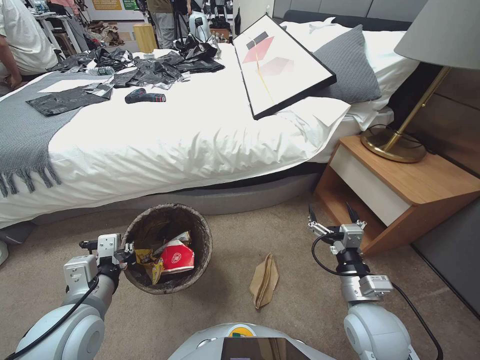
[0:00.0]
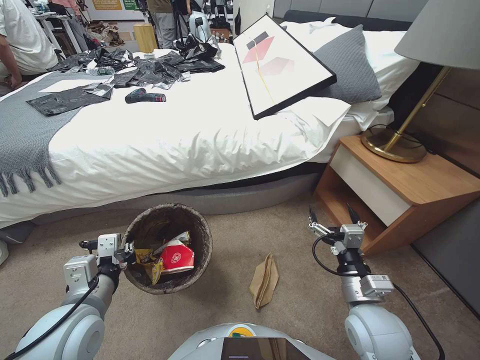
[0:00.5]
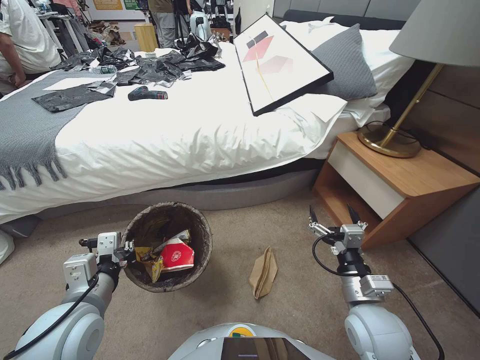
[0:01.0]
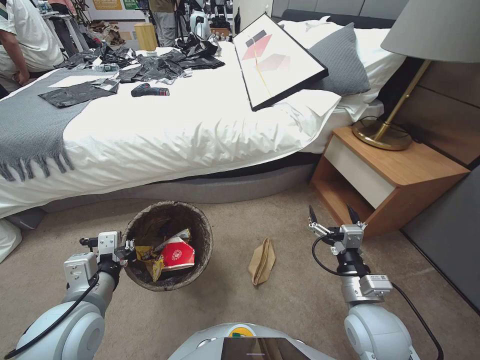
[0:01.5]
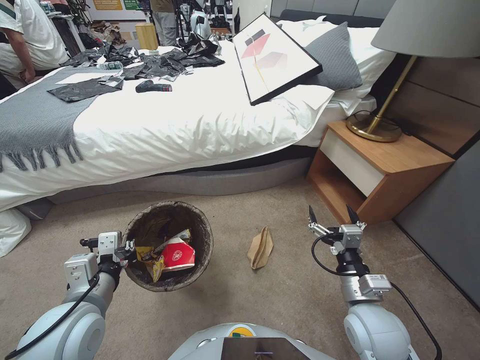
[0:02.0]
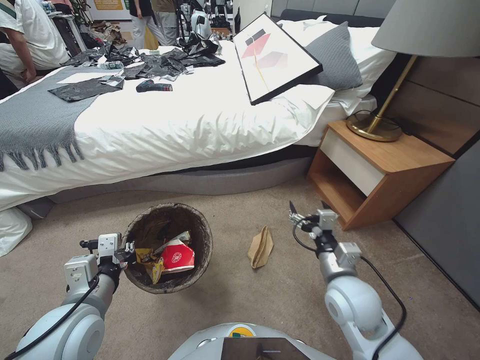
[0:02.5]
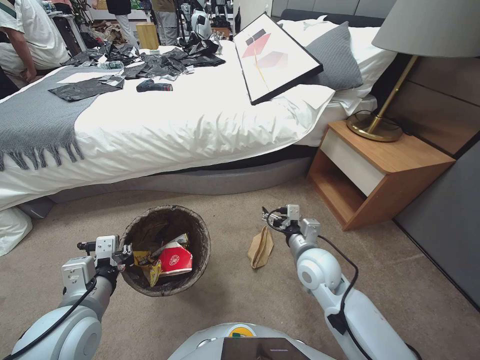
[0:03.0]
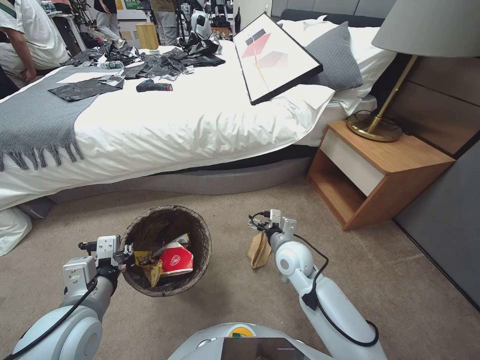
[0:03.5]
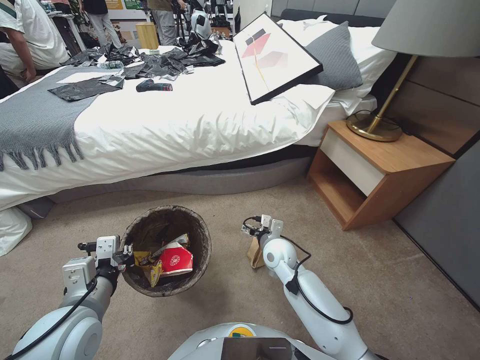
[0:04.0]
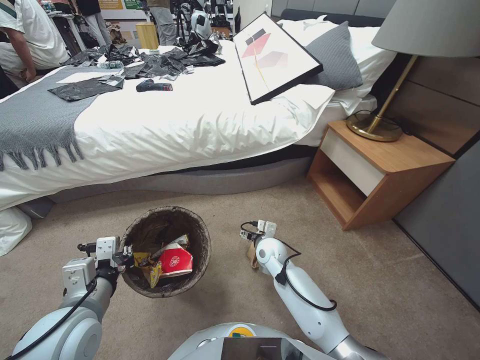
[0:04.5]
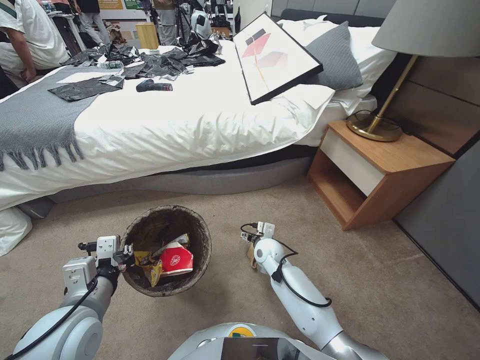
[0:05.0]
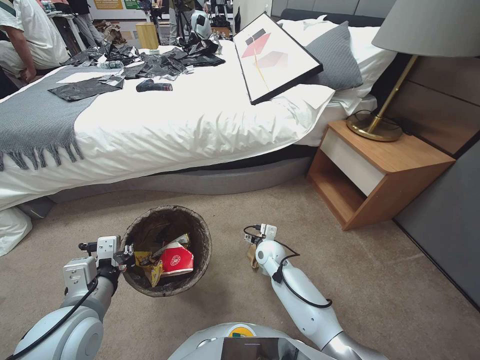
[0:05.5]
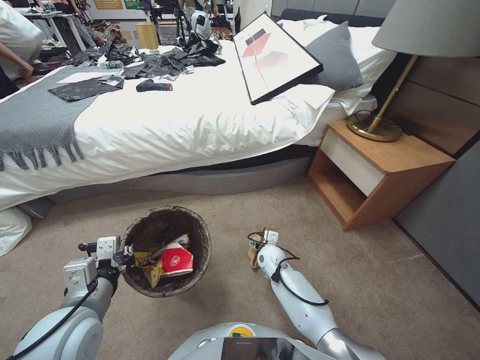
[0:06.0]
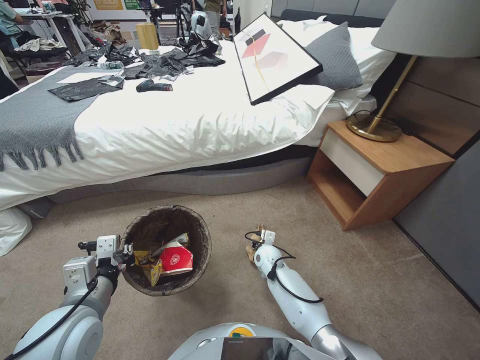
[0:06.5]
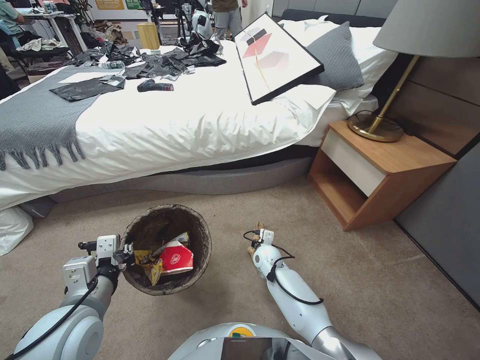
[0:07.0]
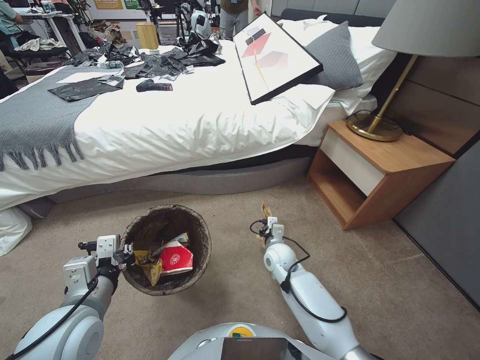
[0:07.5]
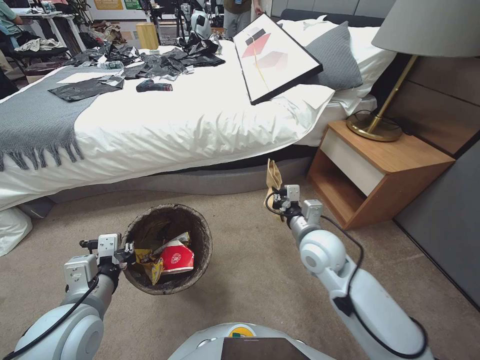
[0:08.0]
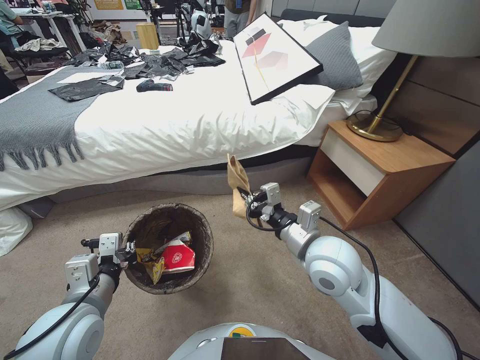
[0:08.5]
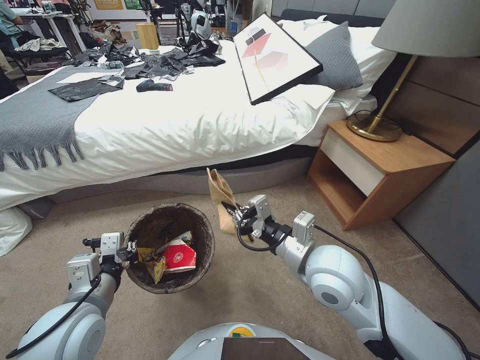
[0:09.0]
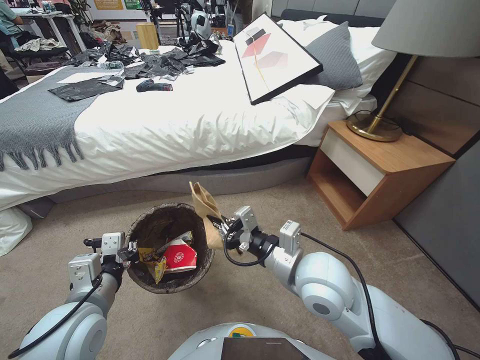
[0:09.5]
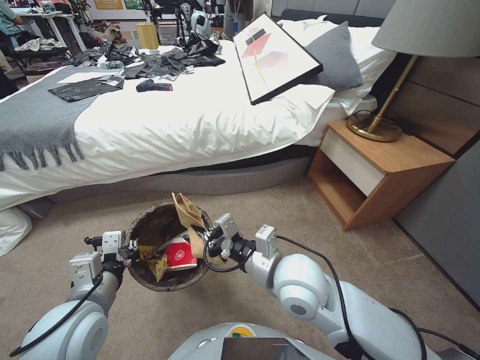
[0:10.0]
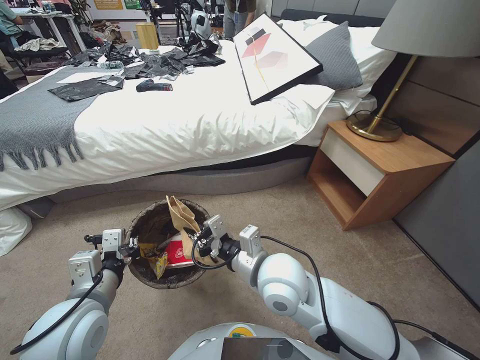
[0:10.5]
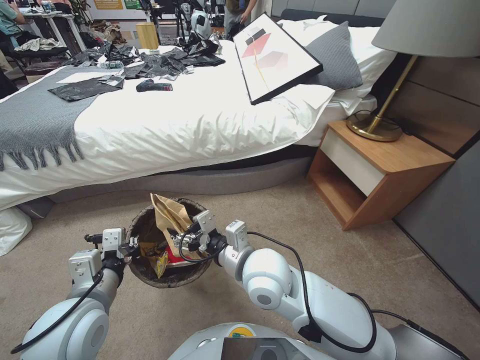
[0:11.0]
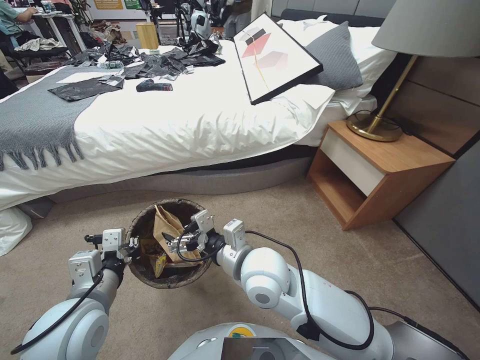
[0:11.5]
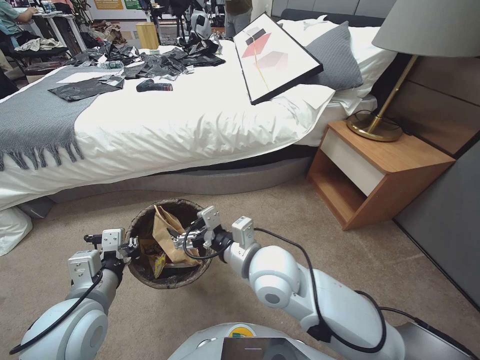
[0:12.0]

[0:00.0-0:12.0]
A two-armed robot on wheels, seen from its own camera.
Task of the whole recording: Pick up the trash bin, then pick up the garbage from the floor and place it into the trash bin.
0:02.0 to 0:04.0: The right gripper shifts about 25 cm forward, to the left and downward.
0:04.0 to 0:06.0: The right gripper goes roughly 10 cm downward.
0:06.0 to 0:08.0: The right gripper goes about 20 cm upward, and closes.
0:08.0 to 0:10.0: The right gripper goes some 15 cm backward, upward and to the left.
0:10.0 to 0:12.0: The right gripper moves to the left, roughly 5 cm, and opens.

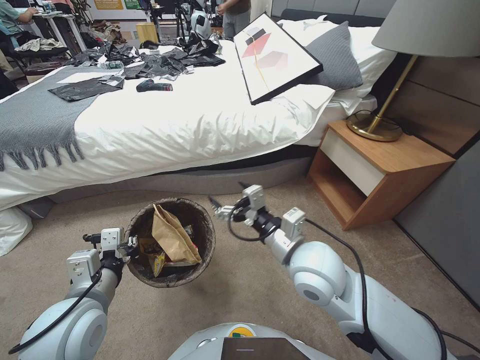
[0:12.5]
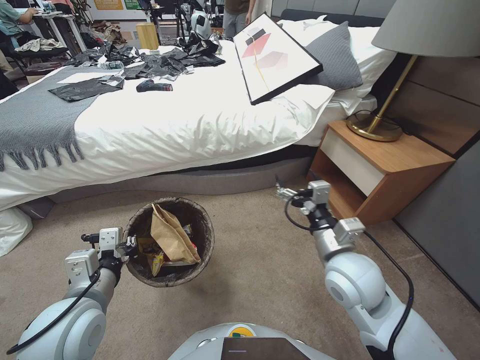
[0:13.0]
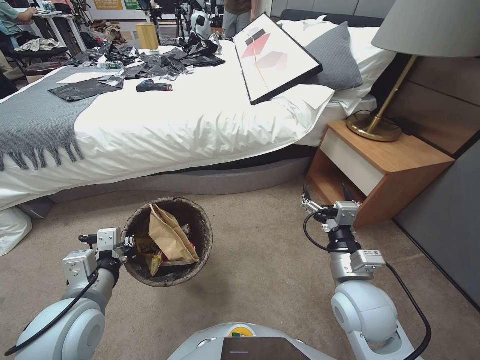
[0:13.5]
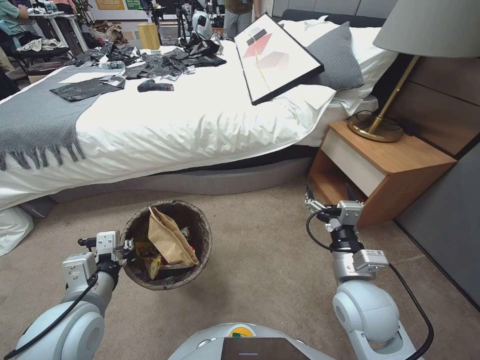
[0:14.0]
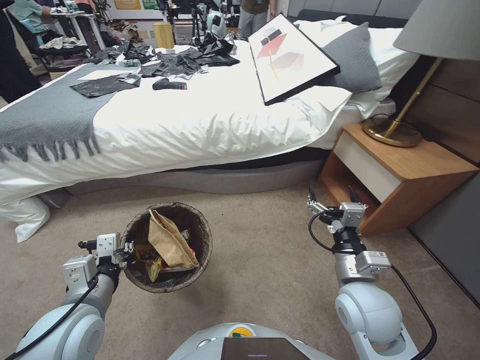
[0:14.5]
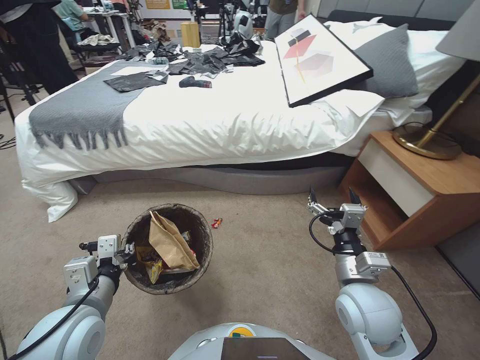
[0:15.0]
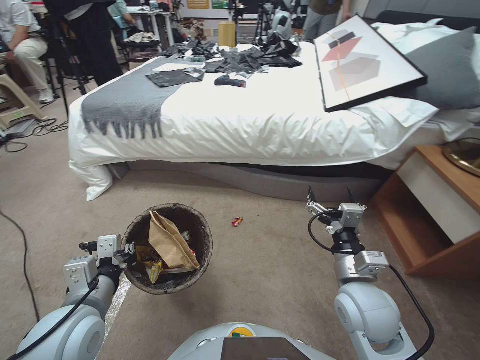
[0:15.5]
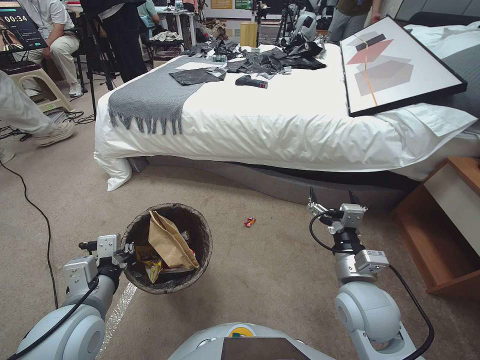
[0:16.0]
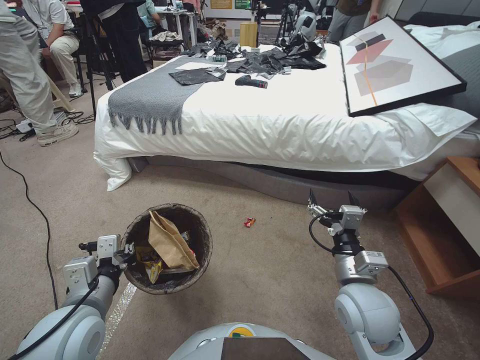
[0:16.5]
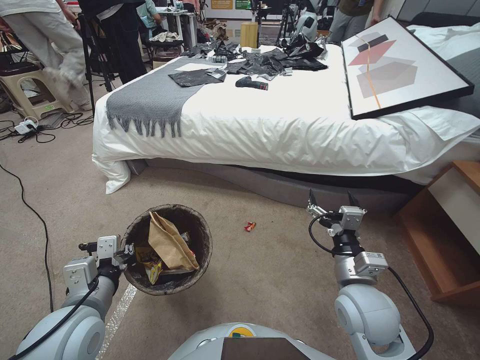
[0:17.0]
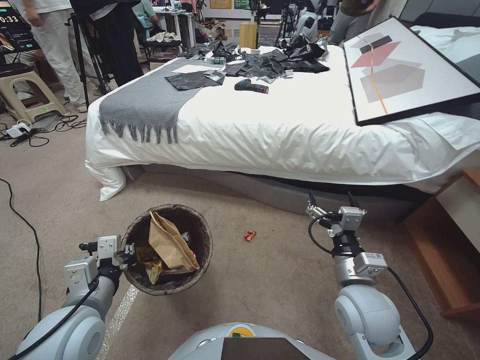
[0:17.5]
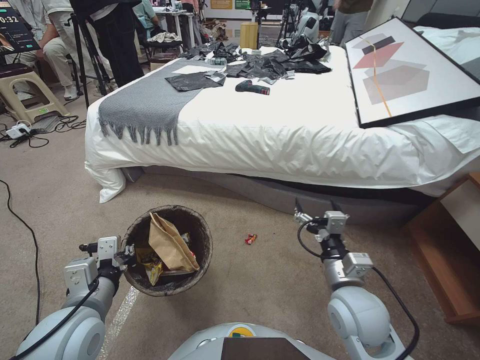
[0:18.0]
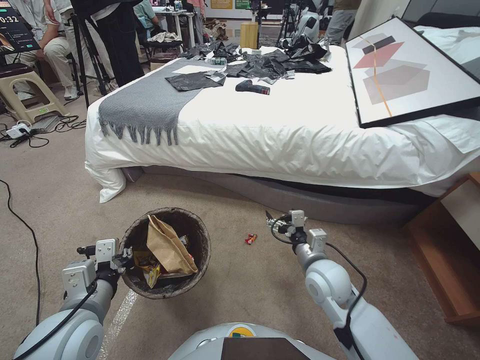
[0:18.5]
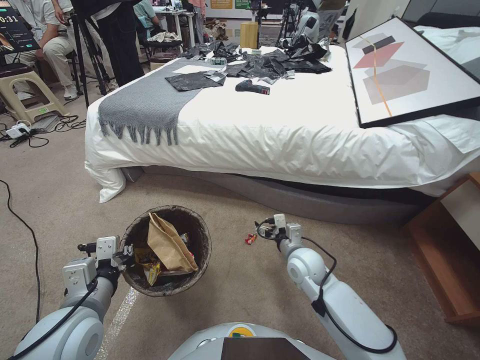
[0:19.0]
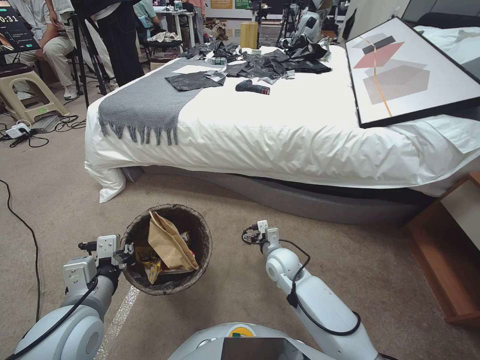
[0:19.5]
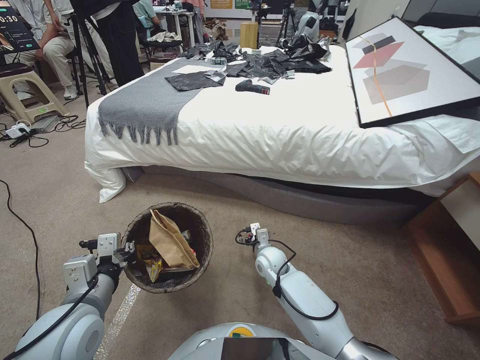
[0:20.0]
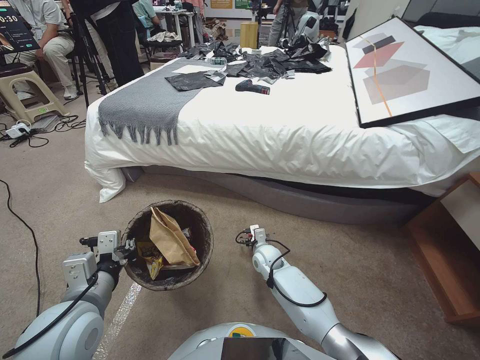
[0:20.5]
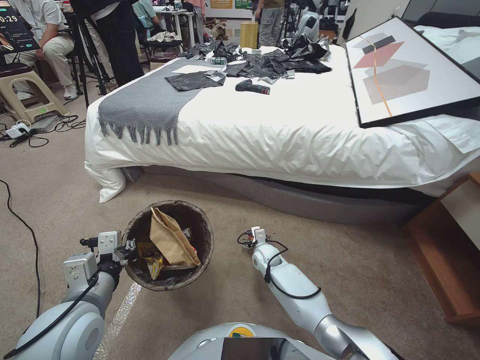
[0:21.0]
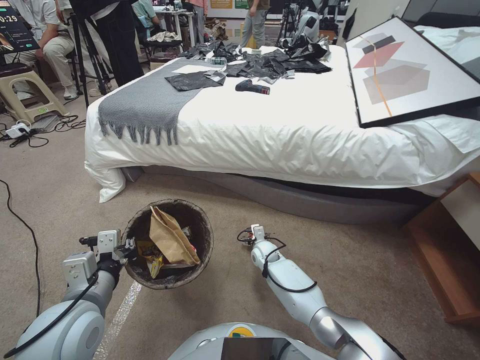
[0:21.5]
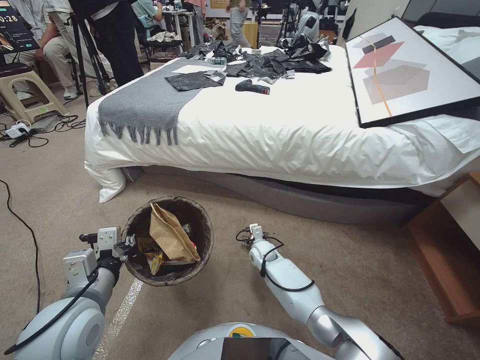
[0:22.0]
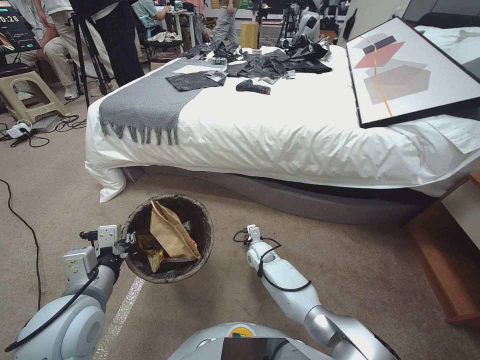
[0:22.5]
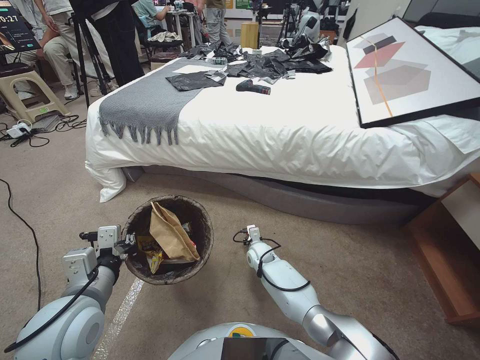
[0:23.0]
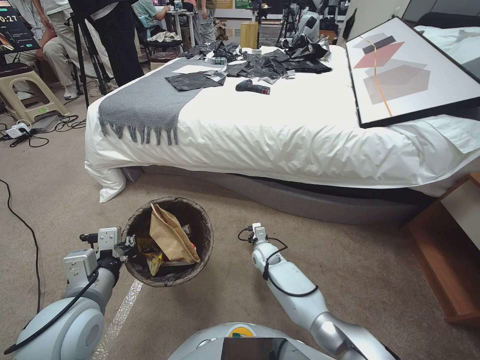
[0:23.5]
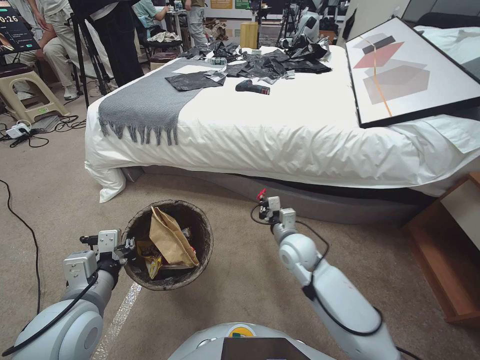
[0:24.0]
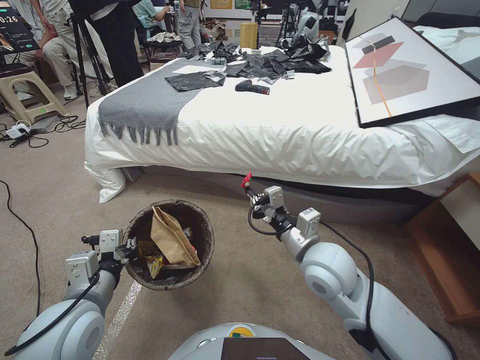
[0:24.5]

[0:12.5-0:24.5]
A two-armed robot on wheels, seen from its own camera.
Task of the whole recording: Pick up the trash bin, then pick up the garbage from the floor and place it into the trash bin.
0:12.5 to 0:14.5: The right gripper shifts about 15 cm to the right, downward and backward.
0:16.5 to 0:18.5: The right gripper travels forward by some 5 cm.
0:18.5 to 0:20.5: The right gripper travels downward, forward and to the left by approximately 25 cm.
0:20.5 to 0:22.5: The right gripper shifts by approximately 5 cm, and closes.
0:22.5 to 0:24.5: The right gripper goes some 35 cm upward and backward, and closes.

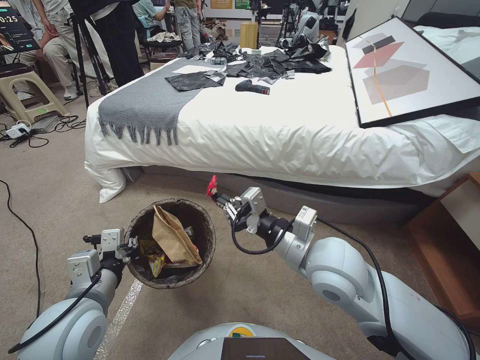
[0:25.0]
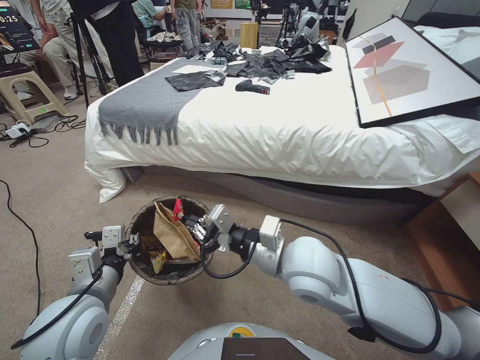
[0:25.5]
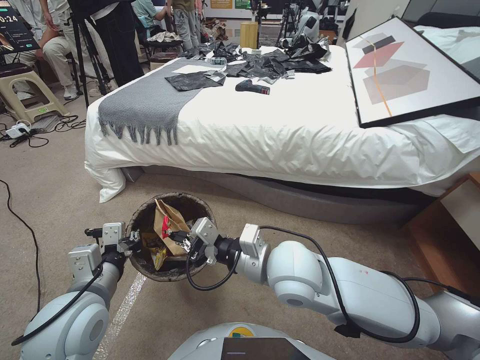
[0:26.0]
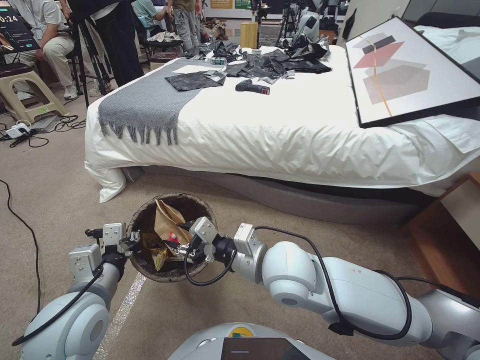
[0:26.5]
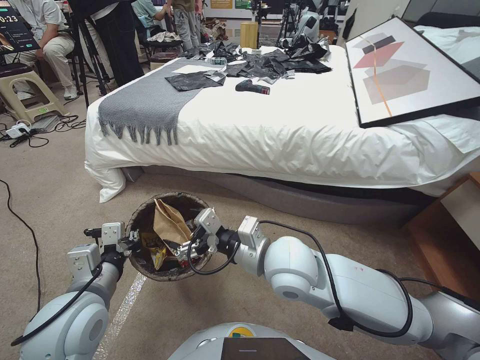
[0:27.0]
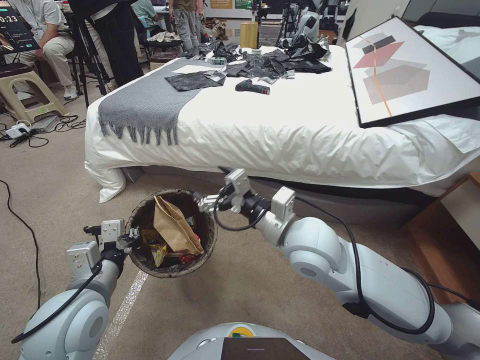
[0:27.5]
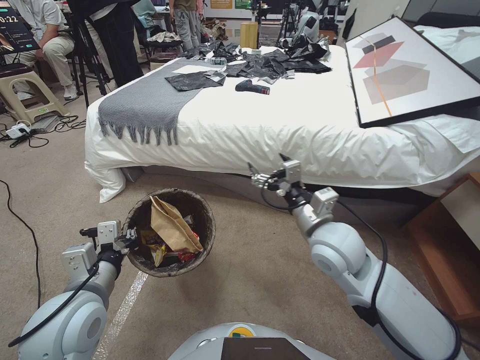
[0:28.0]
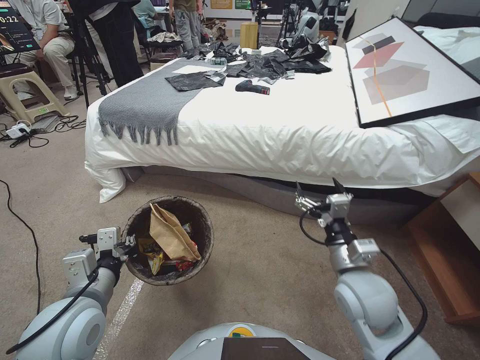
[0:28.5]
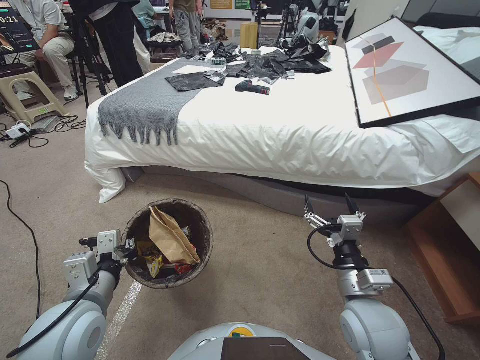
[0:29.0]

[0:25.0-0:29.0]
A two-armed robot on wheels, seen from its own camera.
Task of the whole recording: Pick up the trash bin, then pick up the garbage from the floor and place it into the trash bin.
0:25.0 to 0:27.0: The right gripper is displaced to the left by roughly 5 cm, and opens.
0:27.0 to 0:29.0: The right gripper shifts some 20 cm to the right, downward and backward.
